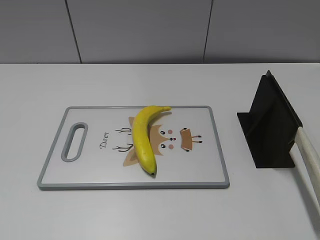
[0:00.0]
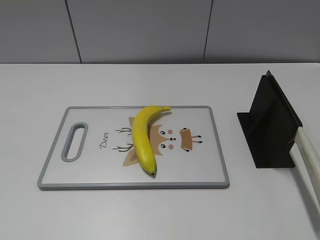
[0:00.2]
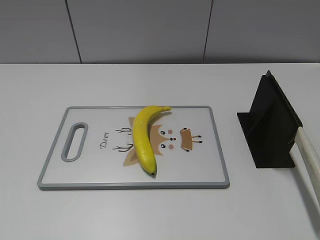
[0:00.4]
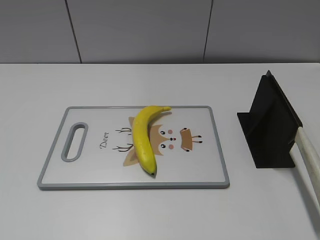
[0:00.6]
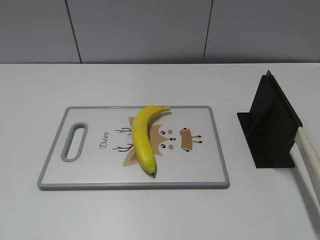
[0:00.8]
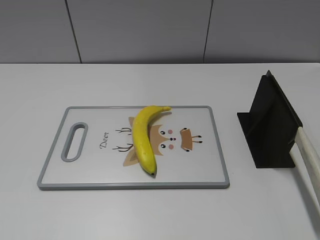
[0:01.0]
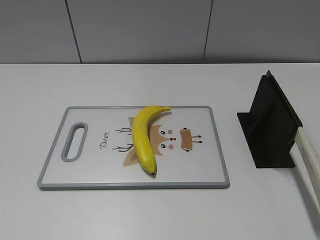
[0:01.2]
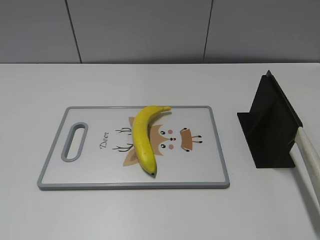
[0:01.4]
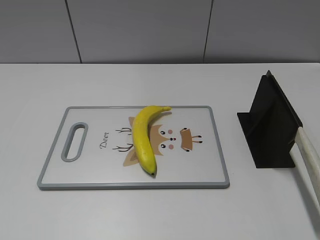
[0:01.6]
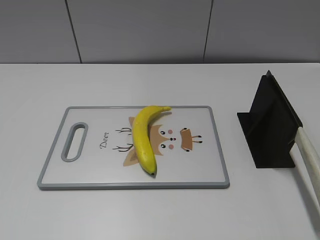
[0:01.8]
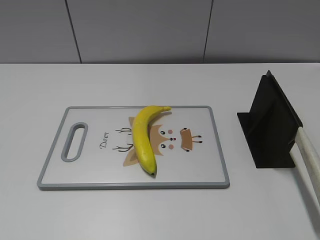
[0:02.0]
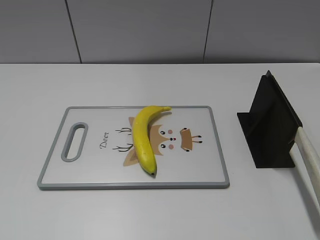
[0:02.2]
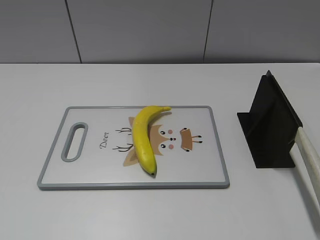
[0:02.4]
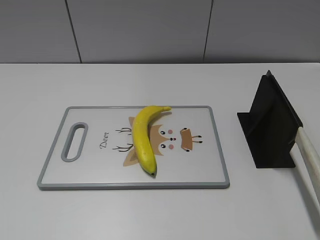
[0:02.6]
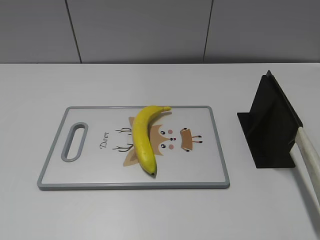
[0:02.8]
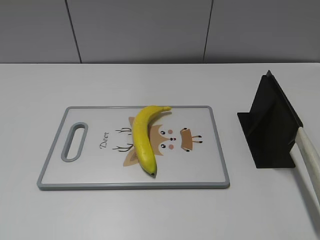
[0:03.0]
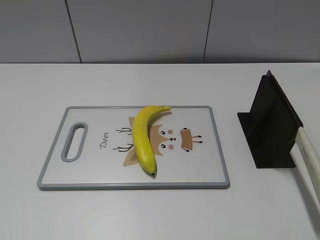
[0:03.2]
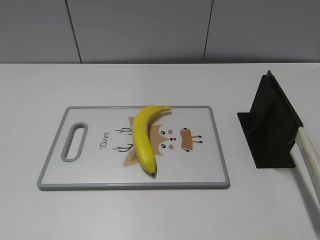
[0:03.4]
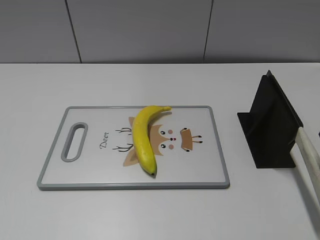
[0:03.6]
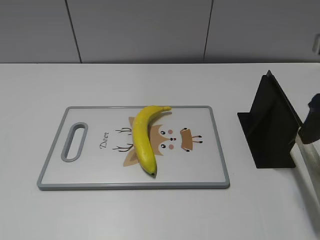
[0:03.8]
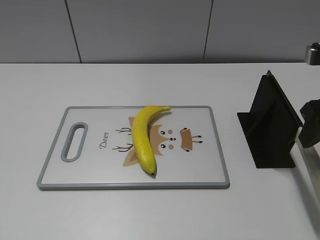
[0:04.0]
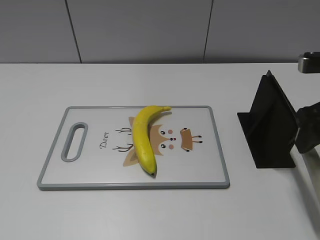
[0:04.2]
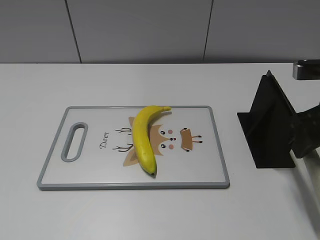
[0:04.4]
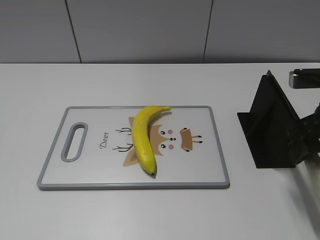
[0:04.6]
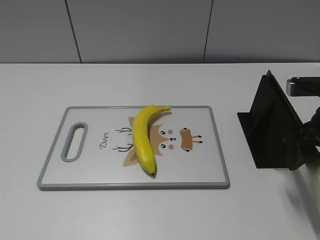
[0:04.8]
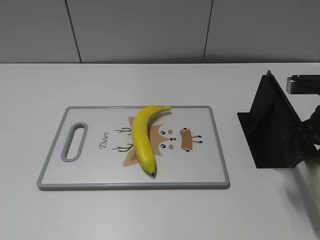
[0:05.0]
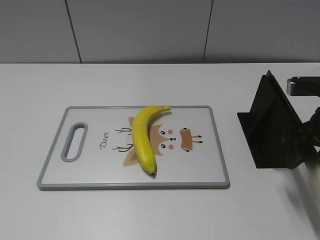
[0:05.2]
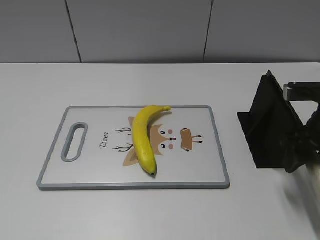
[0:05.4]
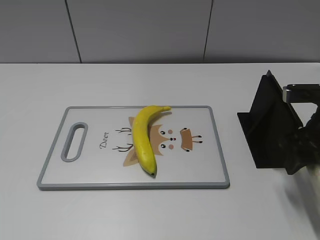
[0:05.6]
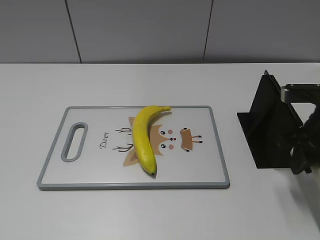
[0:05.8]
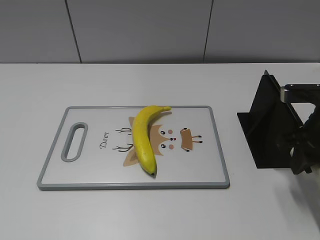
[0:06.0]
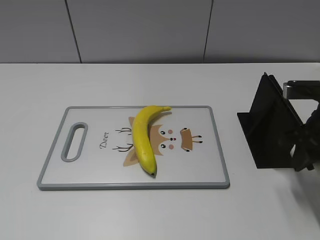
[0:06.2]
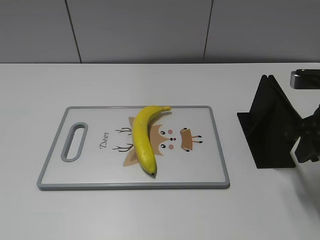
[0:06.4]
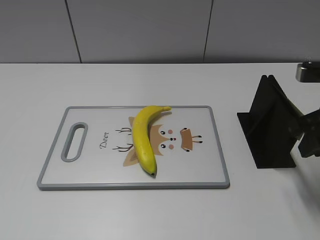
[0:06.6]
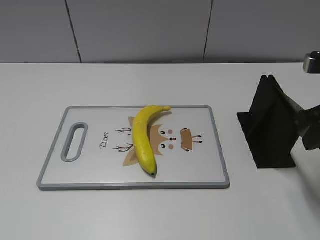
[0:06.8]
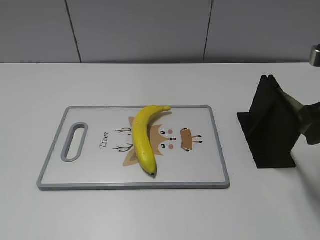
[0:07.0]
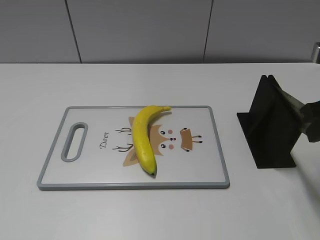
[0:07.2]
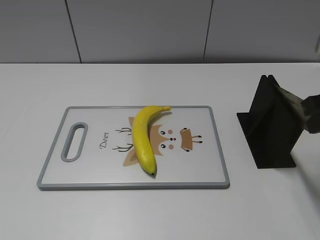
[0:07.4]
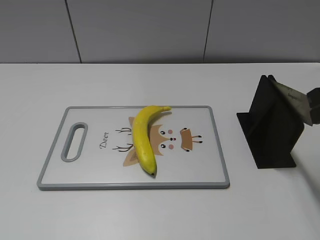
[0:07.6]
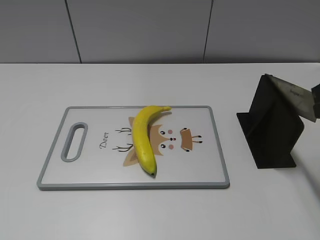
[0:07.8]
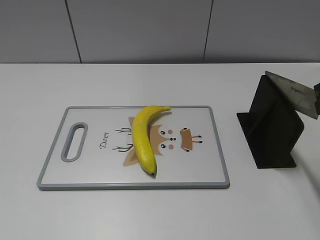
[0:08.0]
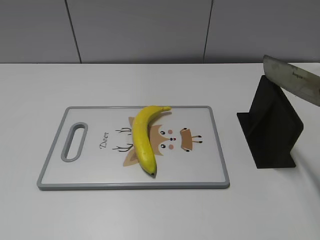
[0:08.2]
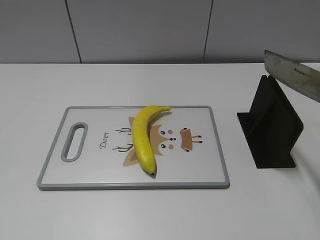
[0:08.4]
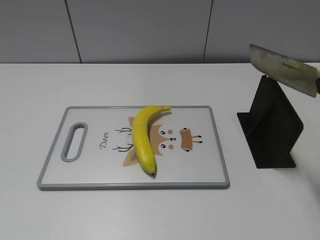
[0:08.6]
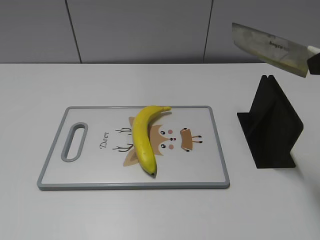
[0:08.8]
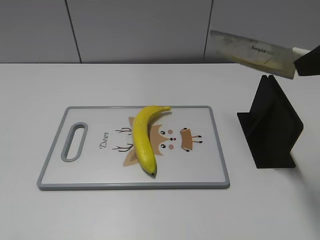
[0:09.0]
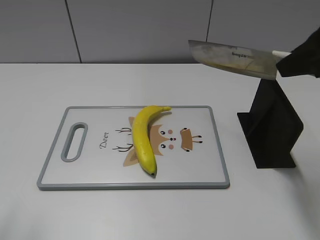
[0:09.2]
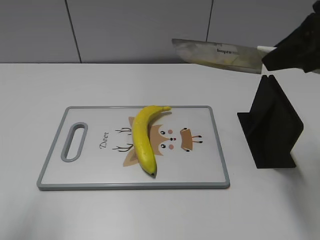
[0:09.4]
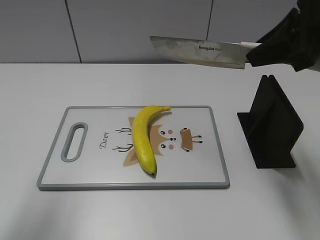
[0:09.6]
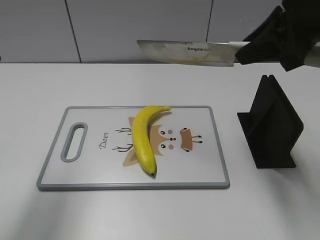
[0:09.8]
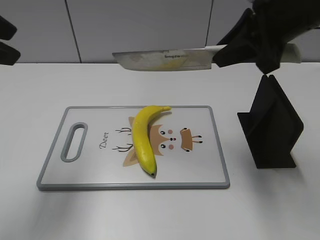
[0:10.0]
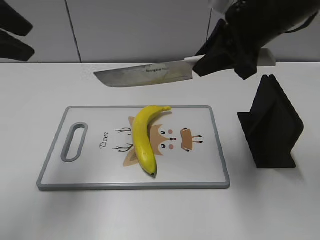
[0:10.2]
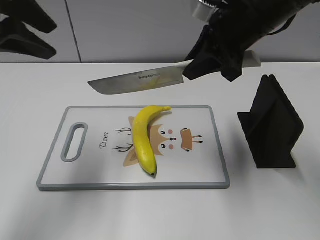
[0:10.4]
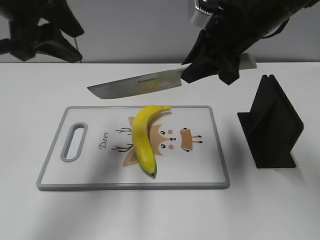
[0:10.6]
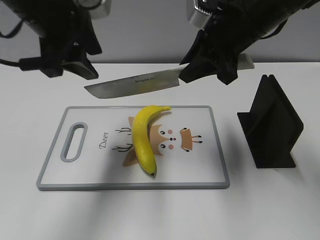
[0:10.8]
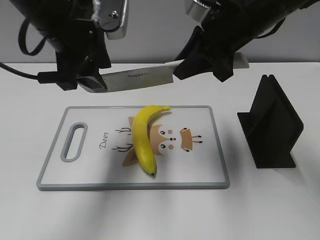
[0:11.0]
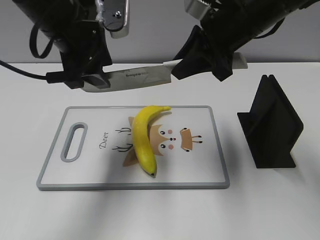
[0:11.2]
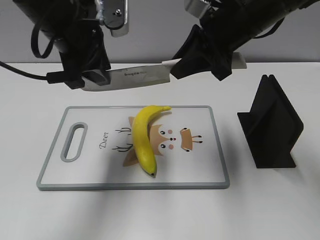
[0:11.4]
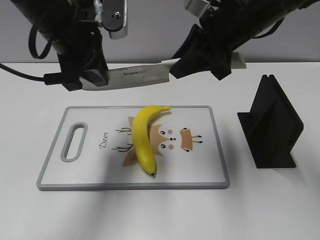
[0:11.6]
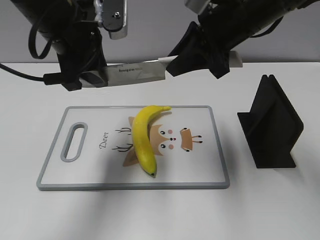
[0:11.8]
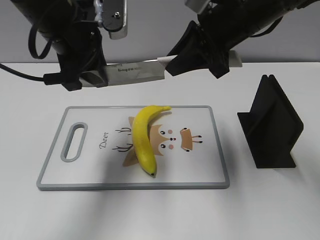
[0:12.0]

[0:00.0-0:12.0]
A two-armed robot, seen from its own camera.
Task of the whole recording: cut plastic banana.
Step, 0:00.0 to 0:07.4: Grab the knife handle with your right hand.
0:03.0 to 0:04.4: The right gripper goes some 15 cm downward and forward.
0:04.4 to 0:06.0: The right gripper closes up.
0:06.0 to 0:07.6: The right gripper is displaced upward by roughly 10 cm.
0:07.6 to 0:09.0: The right gripper heads upward, covering about 5 cm.
0:09.0 to 0:10.4: The right gripper shifts approximately 15 cm forward, to the left and downward. Meanwhile the left gripper heads forward, covering about 25 cm.
0:10.4 to 0:12.0: The left gripper shifts about 10 cm to the right and downward, and closes its fingers.

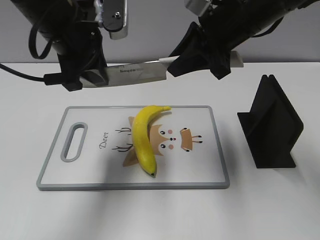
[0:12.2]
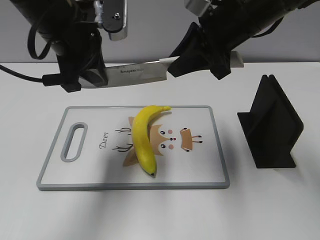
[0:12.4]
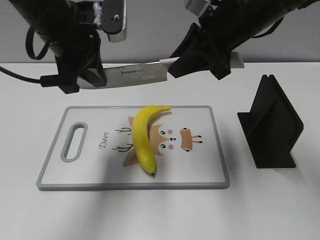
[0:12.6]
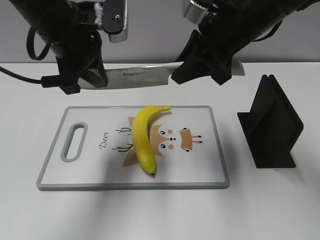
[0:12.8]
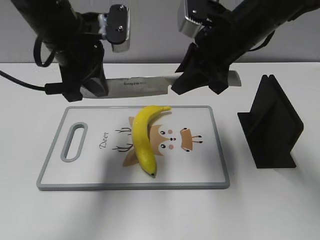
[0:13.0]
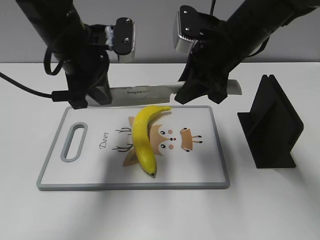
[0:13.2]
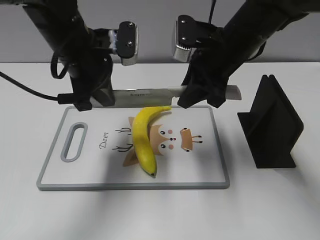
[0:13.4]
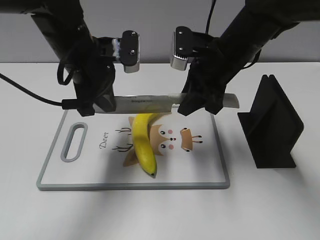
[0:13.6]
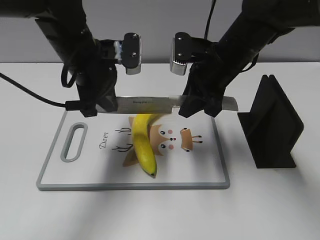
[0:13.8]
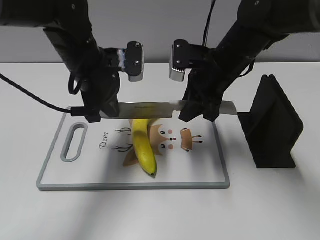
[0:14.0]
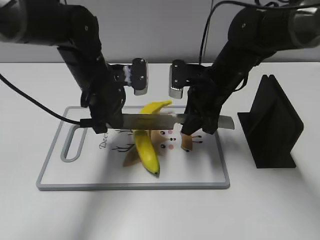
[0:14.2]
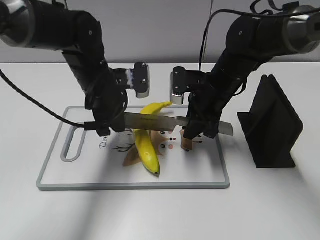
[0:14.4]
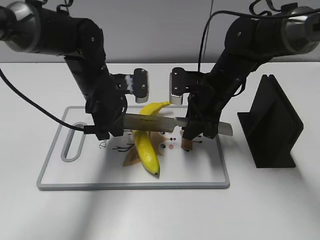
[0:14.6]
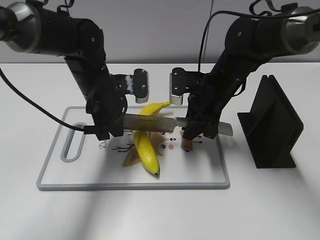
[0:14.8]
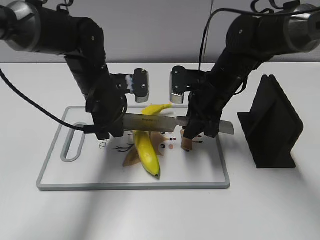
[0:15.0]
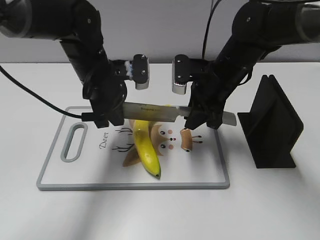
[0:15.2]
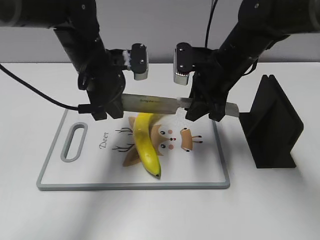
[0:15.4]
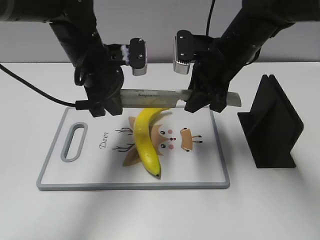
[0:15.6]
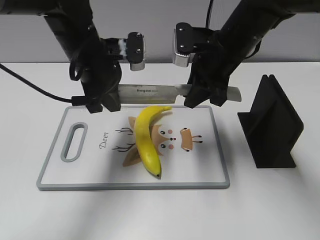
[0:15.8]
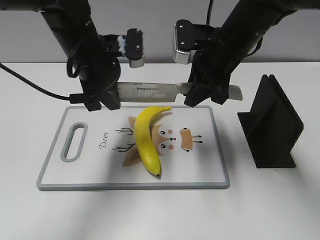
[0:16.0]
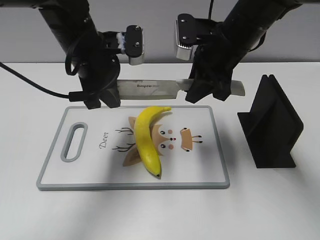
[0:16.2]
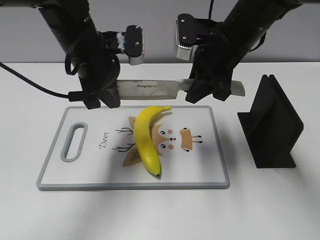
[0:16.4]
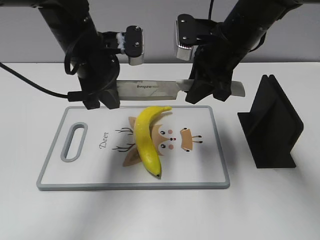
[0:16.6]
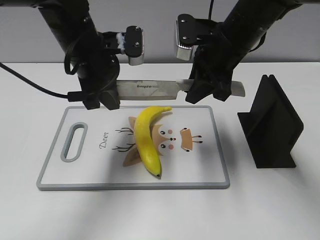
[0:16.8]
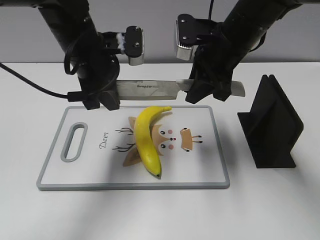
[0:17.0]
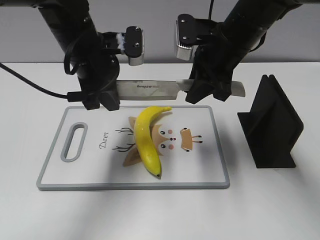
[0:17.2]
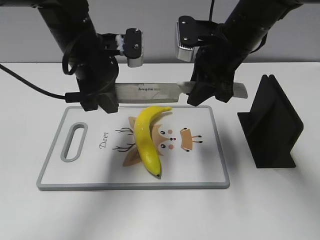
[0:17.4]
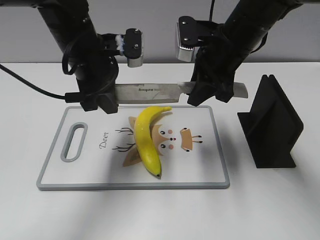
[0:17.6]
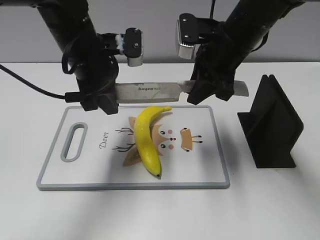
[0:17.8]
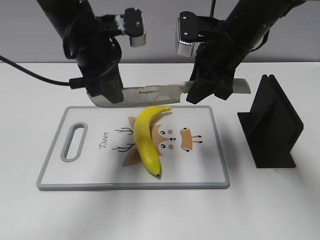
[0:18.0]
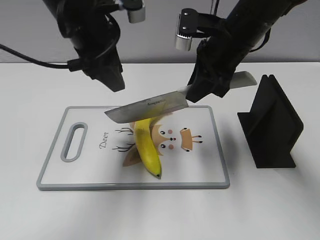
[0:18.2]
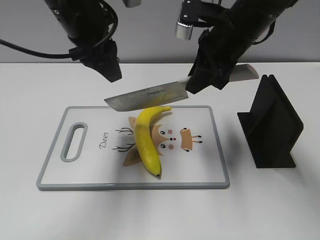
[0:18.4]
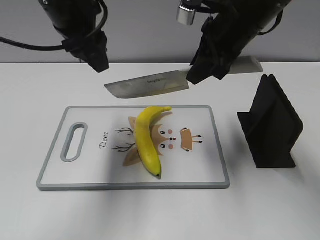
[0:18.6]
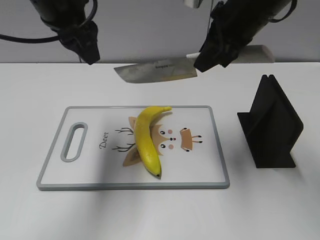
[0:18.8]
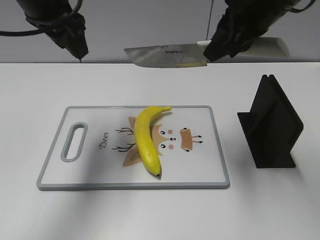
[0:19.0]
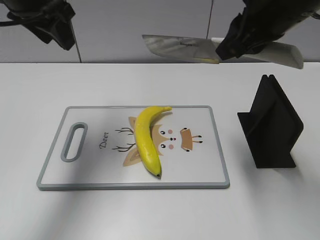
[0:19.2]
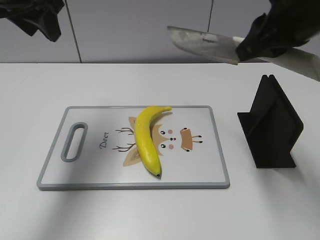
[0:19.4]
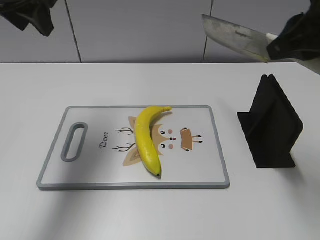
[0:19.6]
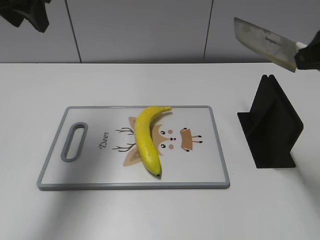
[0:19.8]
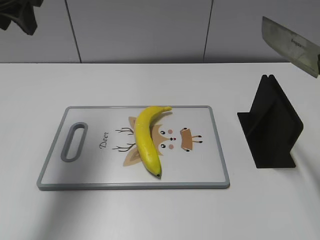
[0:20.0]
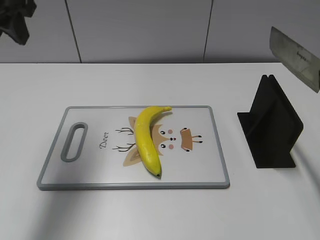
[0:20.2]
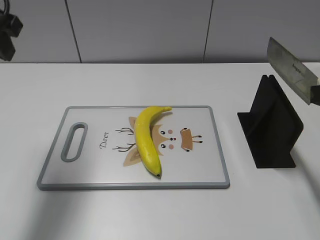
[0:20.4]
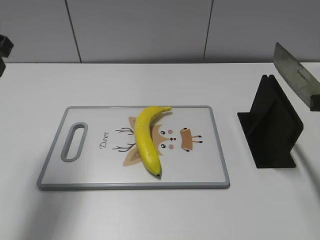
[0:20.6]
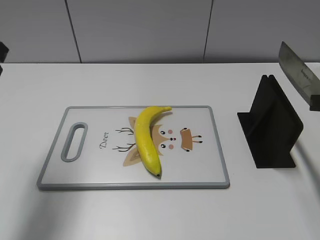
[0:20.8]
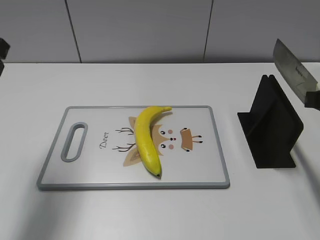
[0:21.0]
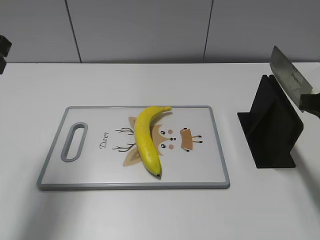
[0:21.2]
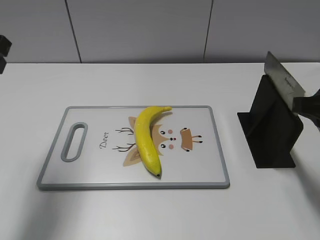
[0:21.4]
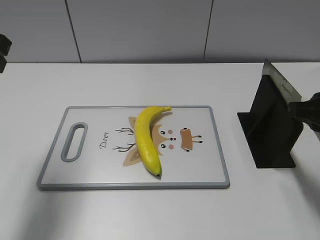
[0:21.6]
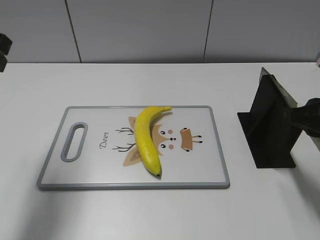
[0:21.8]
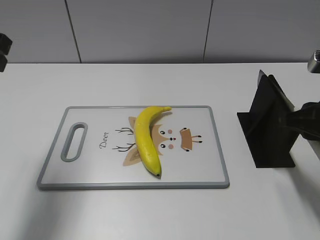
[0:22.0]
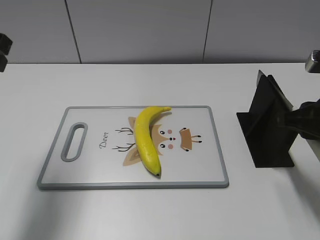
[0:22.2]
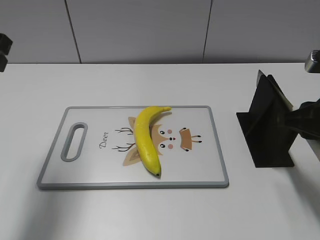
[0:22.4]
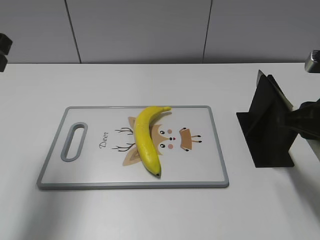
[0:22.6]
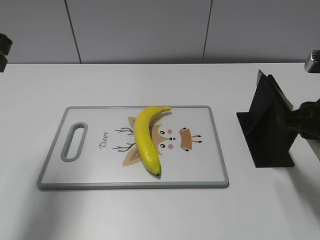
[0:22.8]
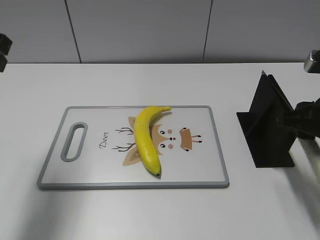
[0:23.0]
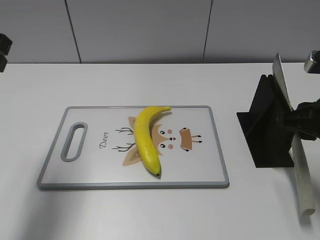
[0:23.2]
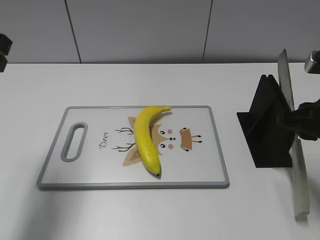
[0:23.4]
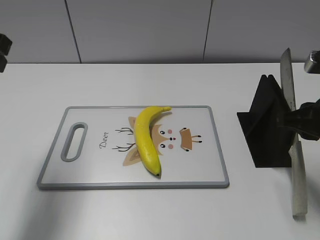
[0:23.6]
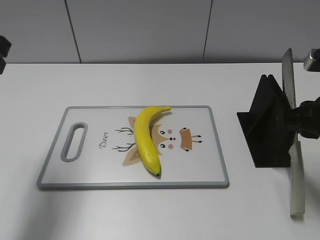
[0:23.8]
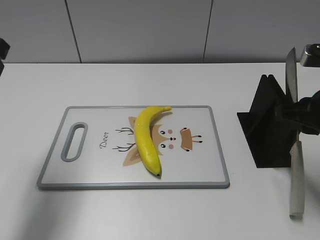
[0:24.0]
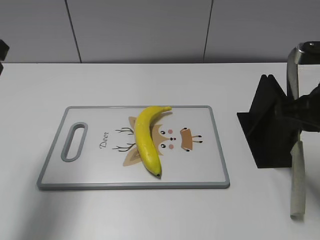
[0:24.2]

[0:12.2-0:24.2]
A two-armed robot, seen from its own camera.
Task of the whole recording: cut plastic banana.
Step, 0:12.2 to 0:14.6: Hold the blade with your left hand.
Step, 0:14.8 to 0:18.6: Cut the banana with your right hand.
Step, 0:18.8 to 0:22.2: Secure the blade with your left hand.
0:12.2 to 0:13.8: The grippers both shift downward by some 5 cm. The left gripper closes.
0:15.2 to 0:16.6: The two grippers go roughly 5 cm upward.
0:16.6 to 0:18.2: The left gripper shifts some 5 cm upward, and opens its fingers.
0:18.2 to 0:19.8: The left gripper goes some 15 cm to the left and upward. Meanwhile the right gripper is displaced backward, to the right and upward by some 20 cm.
0:19.8 to 0:21.2: The right gripper goes some 10 cm downward. Meanwhile the left gripper is displaced backward by roughly 10 cm.
0:21.2 to 0:24.2: The grippers move only a little.
